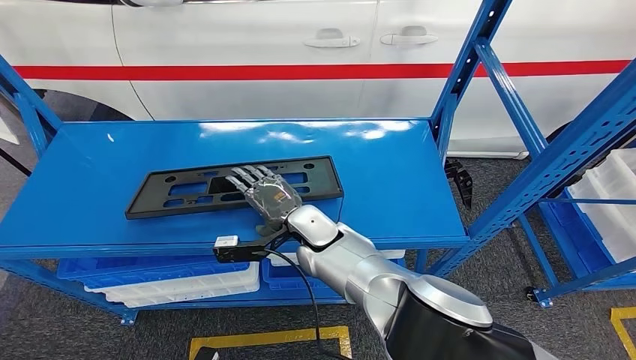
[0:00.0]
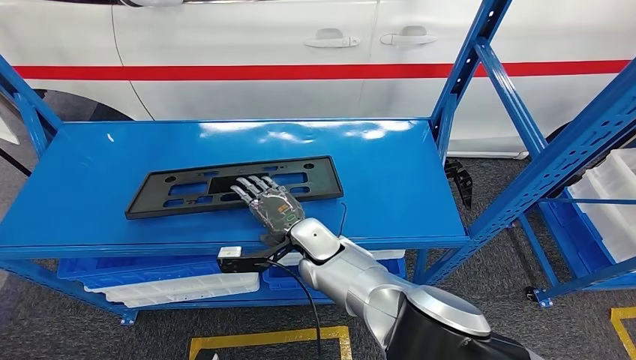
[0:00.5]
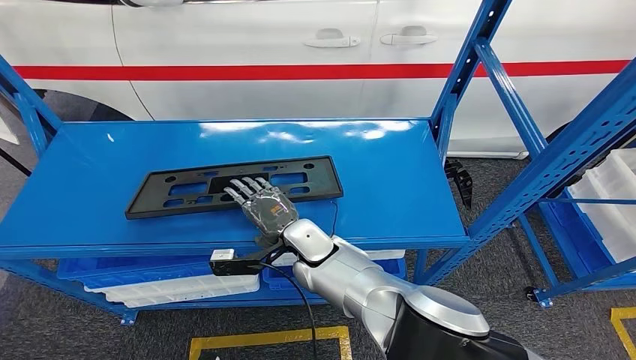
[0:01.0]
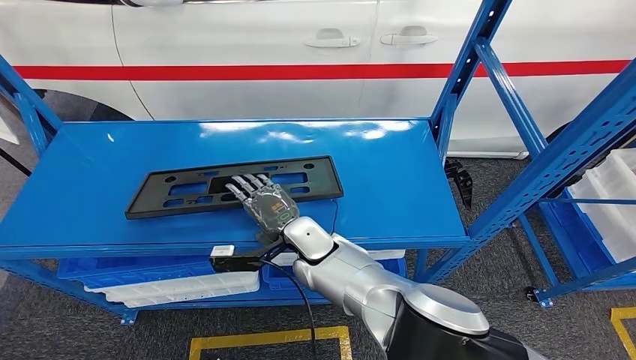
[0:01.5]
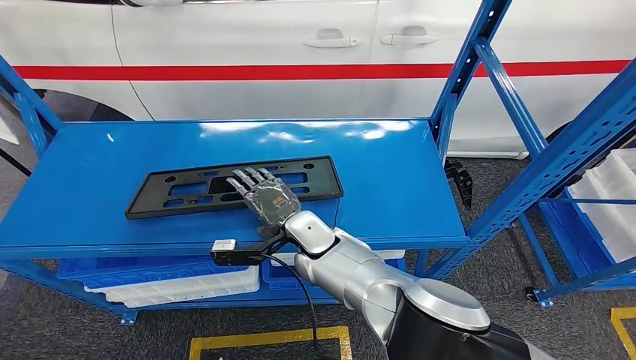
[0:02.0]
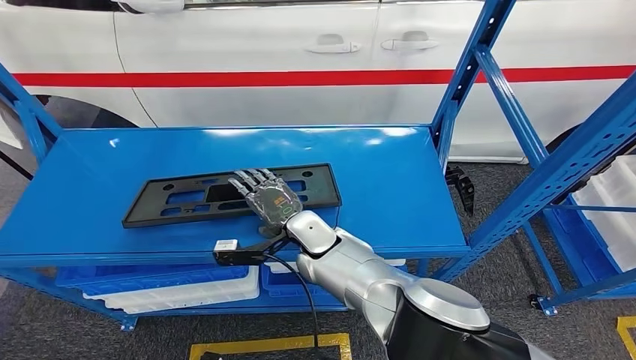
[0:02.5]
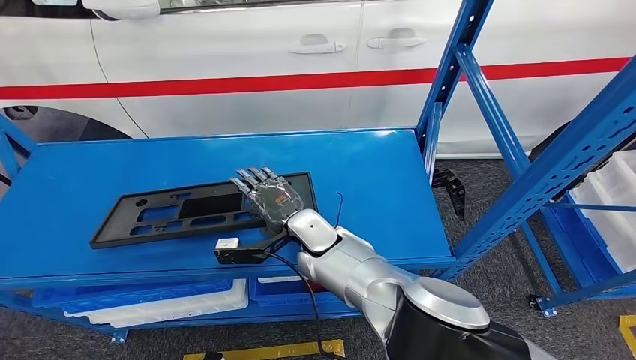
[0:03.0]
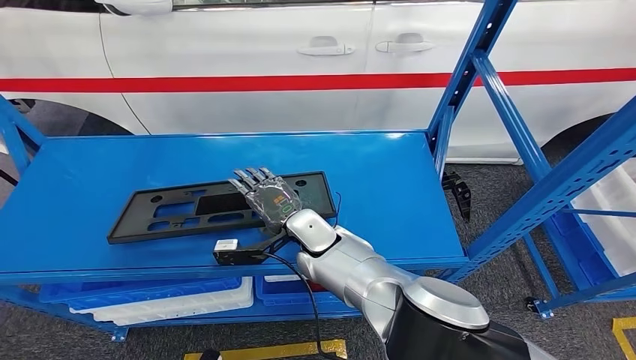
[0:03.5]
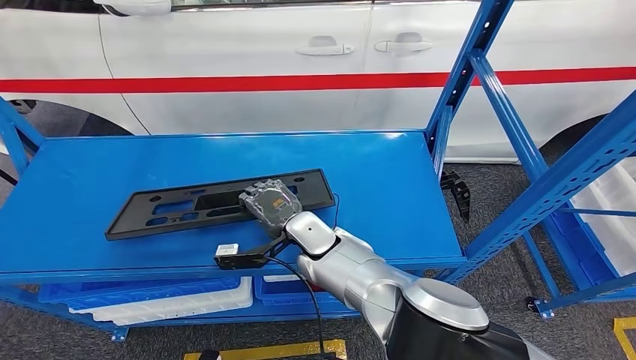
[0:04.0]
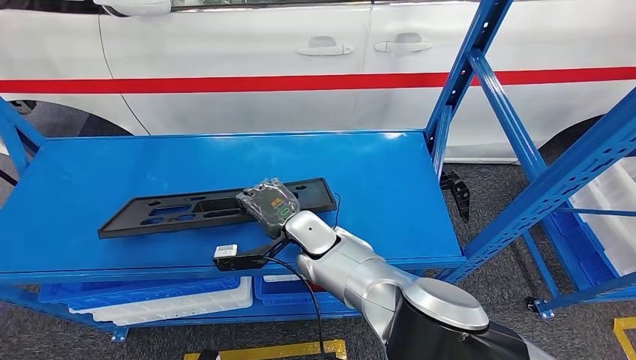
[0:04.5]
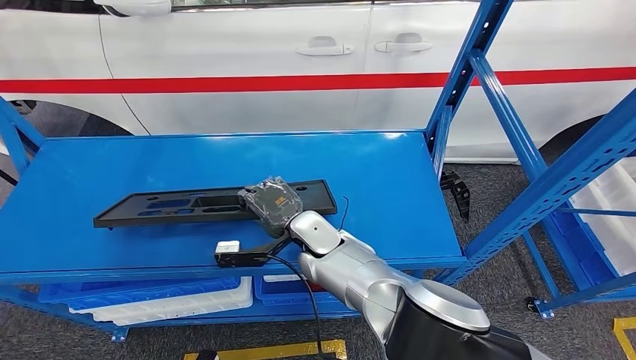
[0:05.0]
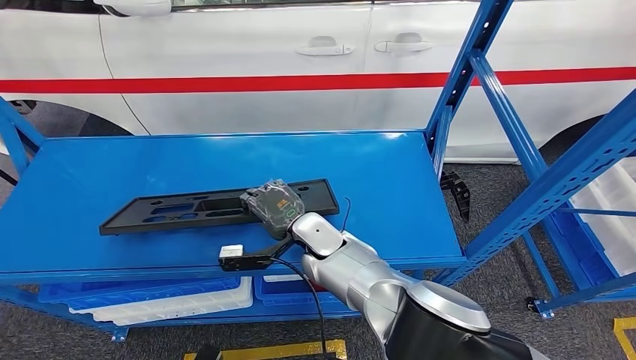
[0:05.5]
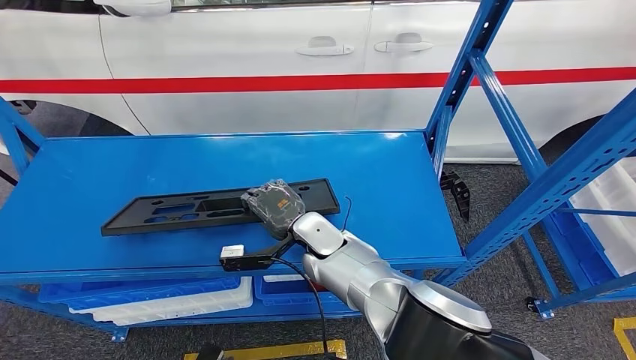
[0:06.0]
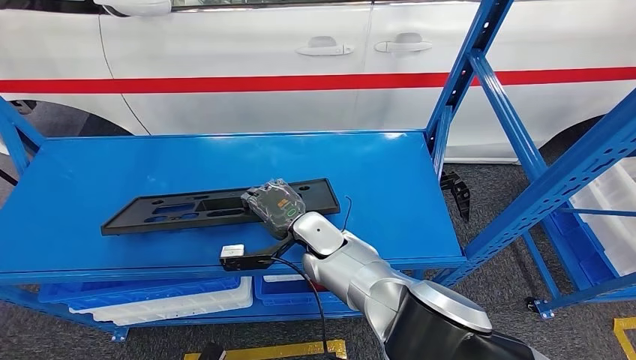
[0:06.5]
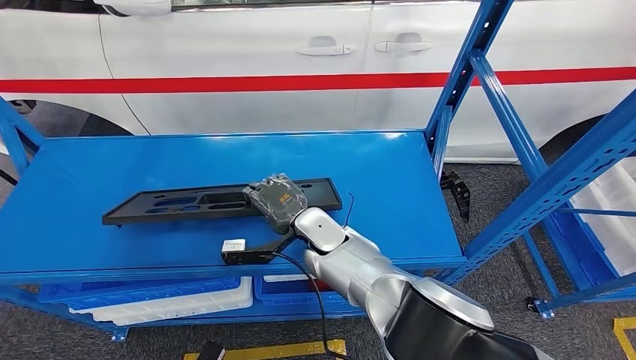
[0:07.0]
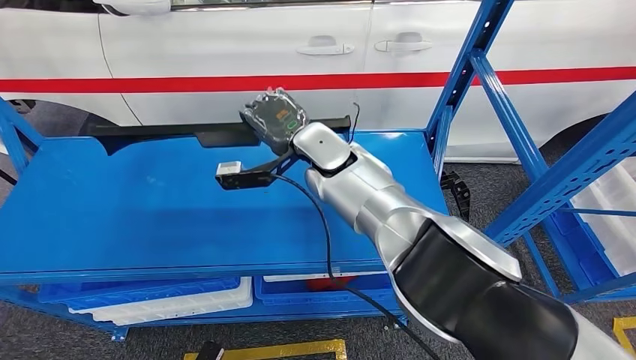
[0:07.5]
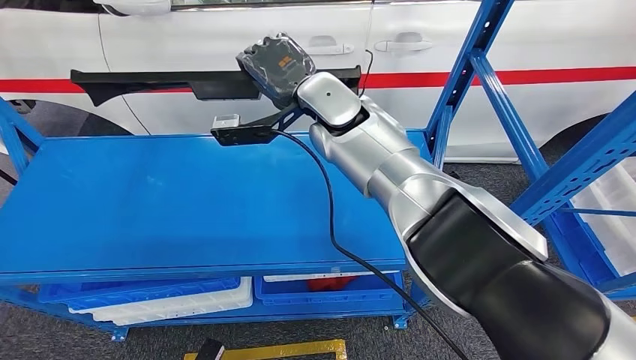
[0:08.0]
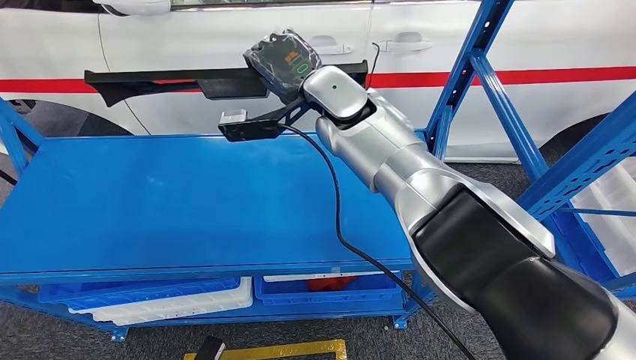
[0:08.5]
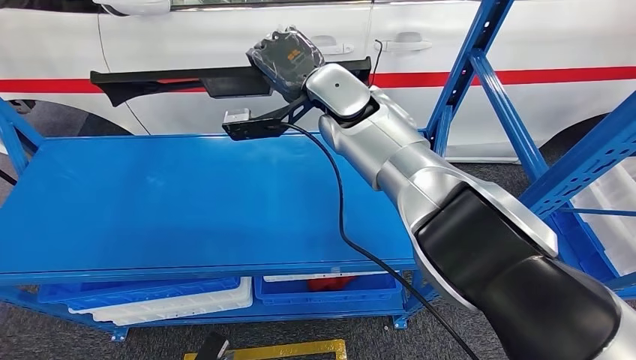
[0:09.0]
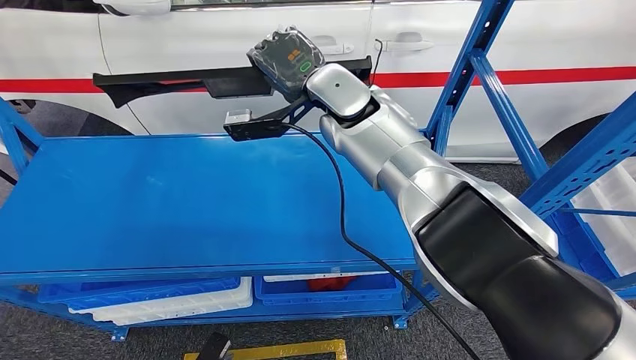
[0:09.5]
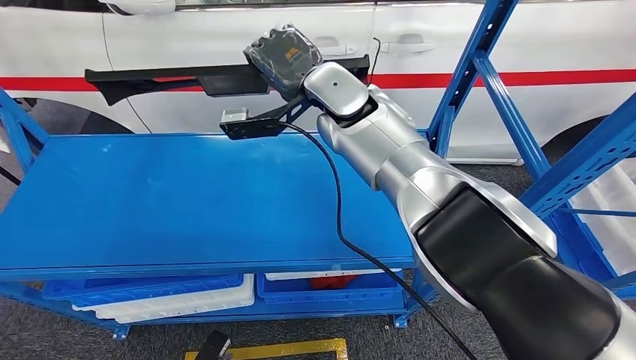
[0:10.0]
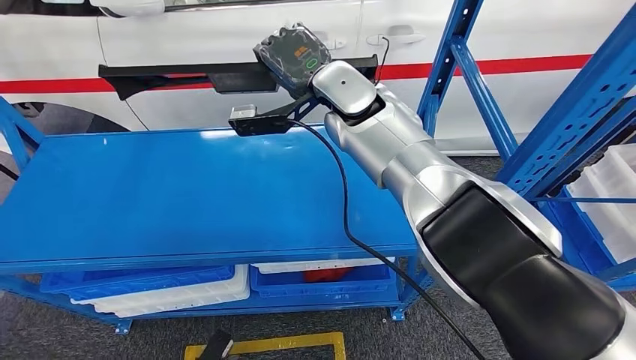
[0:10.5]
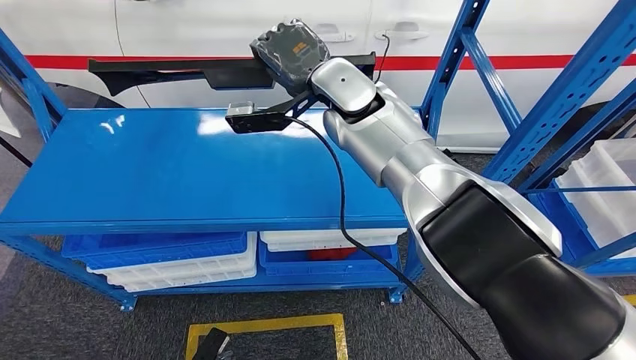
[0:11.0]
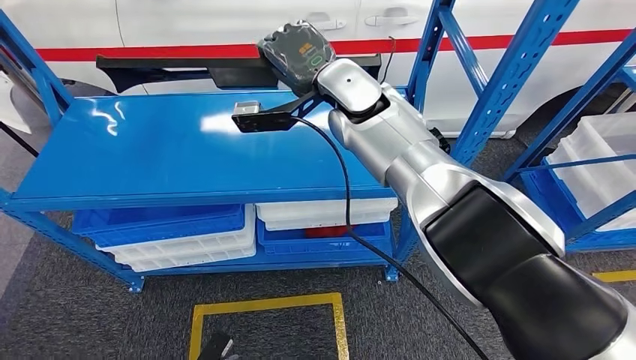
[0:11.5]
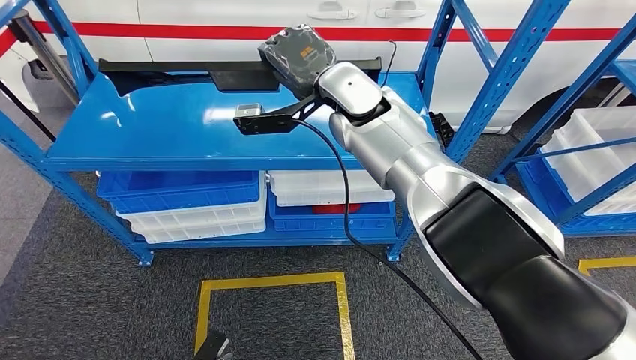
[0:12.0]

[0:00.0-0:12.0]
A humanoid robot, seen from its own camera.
Step, 0:00.0 to 0:08.0: Pick up the large material from the shelf.
0:00.0 to 0:02.0: The hands make only small movements.
0:04.0 to 0:06.0: The hands move only a little.

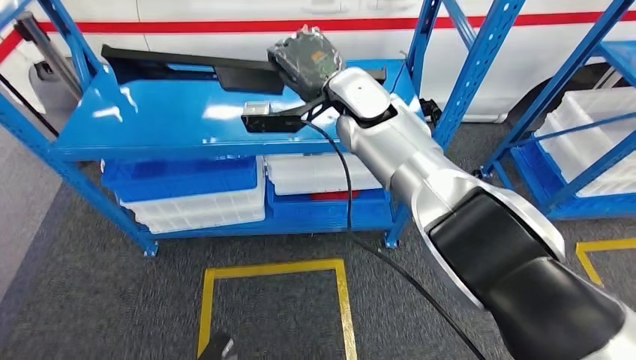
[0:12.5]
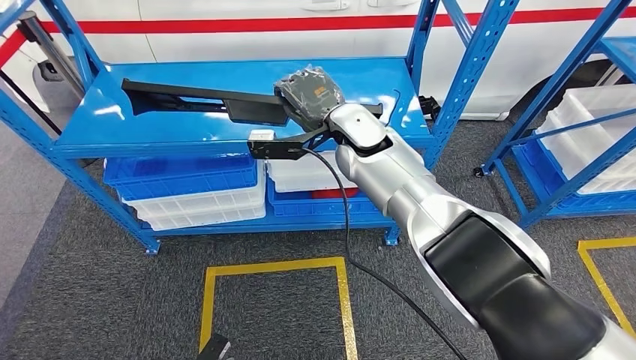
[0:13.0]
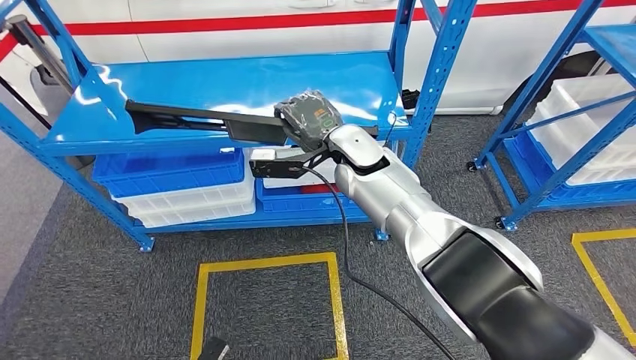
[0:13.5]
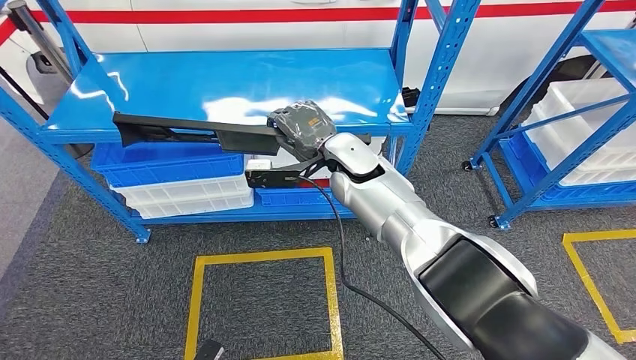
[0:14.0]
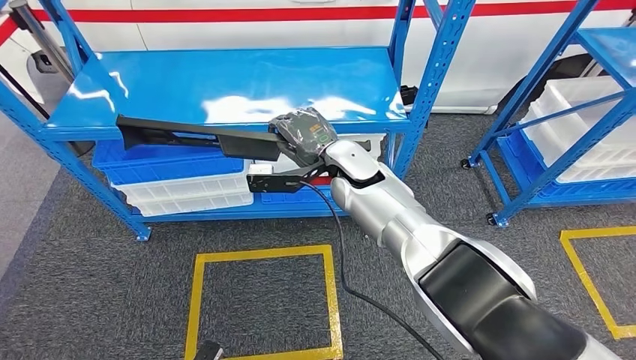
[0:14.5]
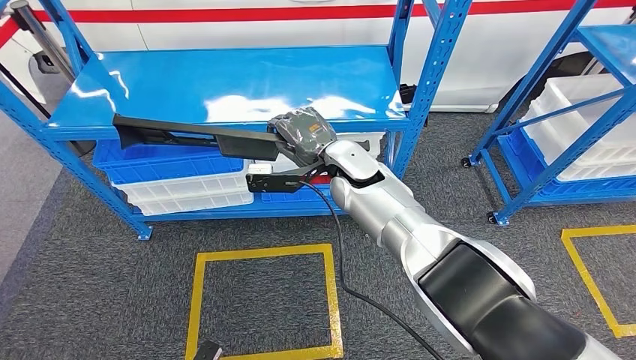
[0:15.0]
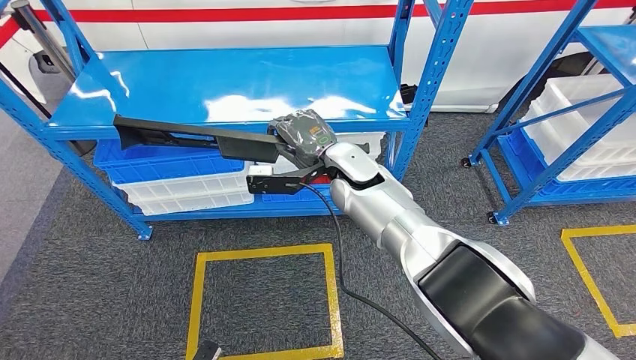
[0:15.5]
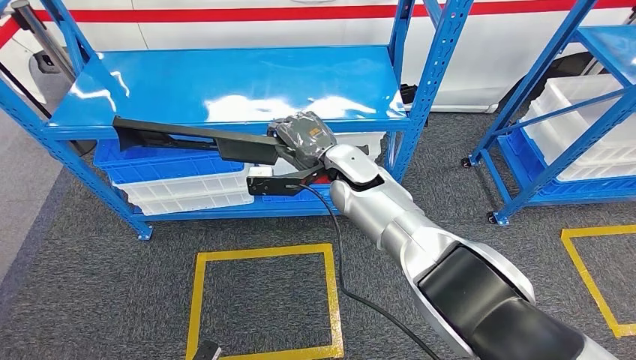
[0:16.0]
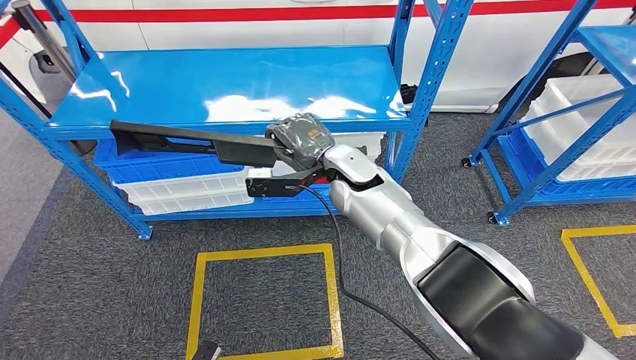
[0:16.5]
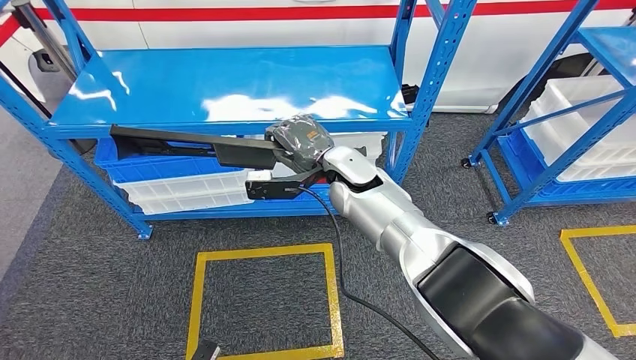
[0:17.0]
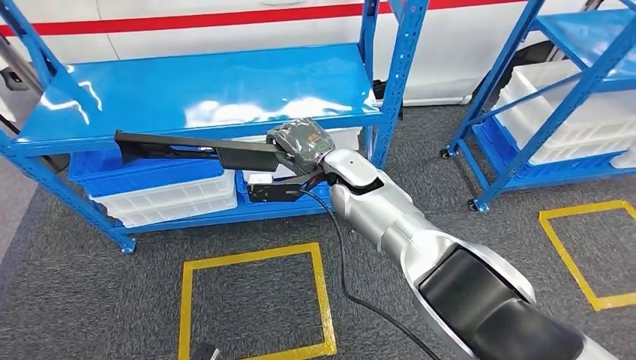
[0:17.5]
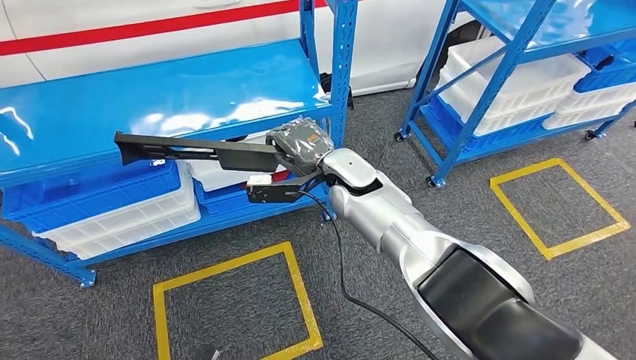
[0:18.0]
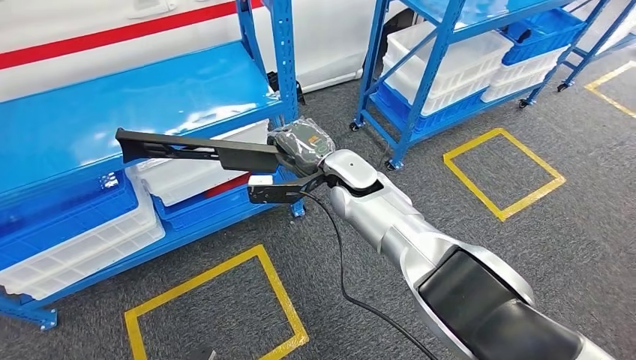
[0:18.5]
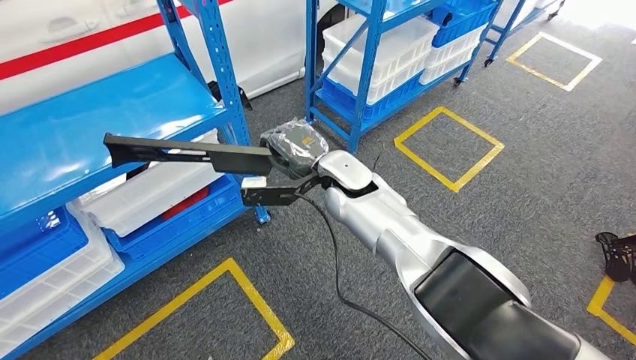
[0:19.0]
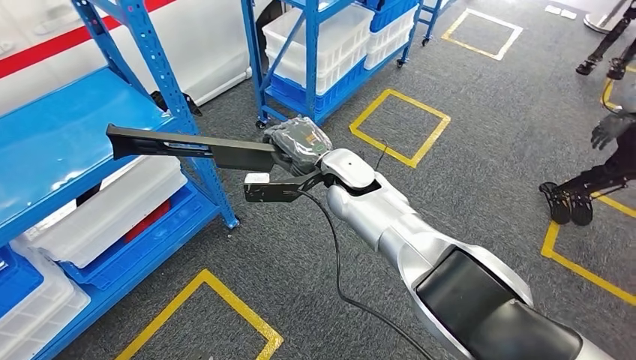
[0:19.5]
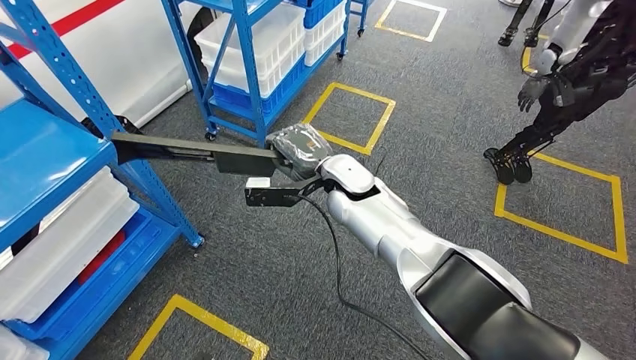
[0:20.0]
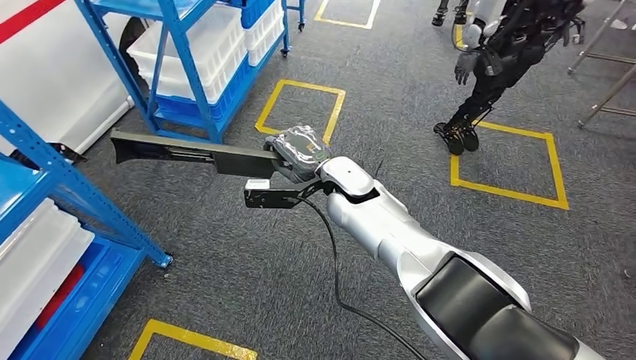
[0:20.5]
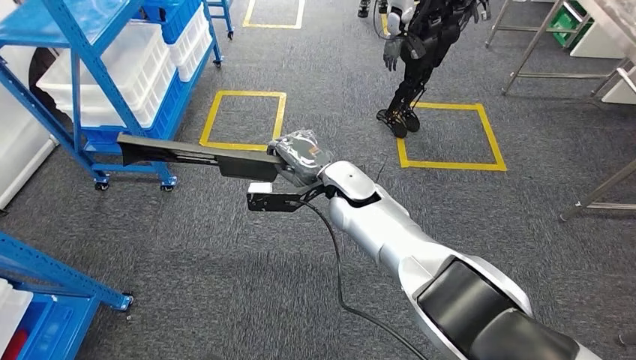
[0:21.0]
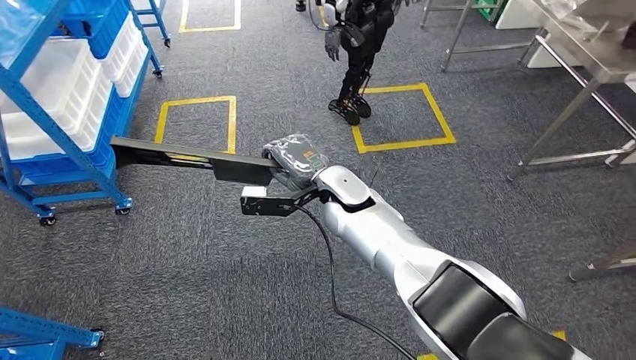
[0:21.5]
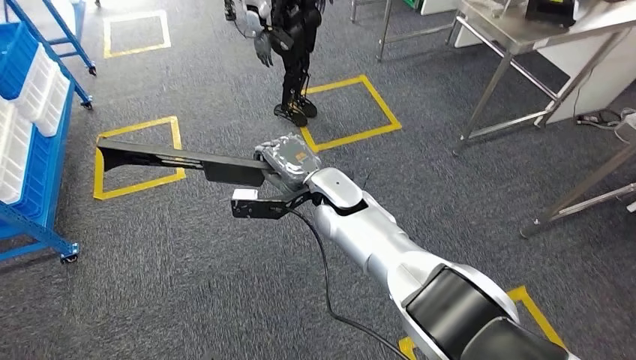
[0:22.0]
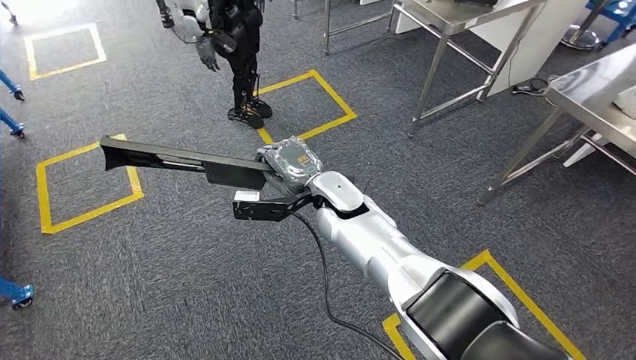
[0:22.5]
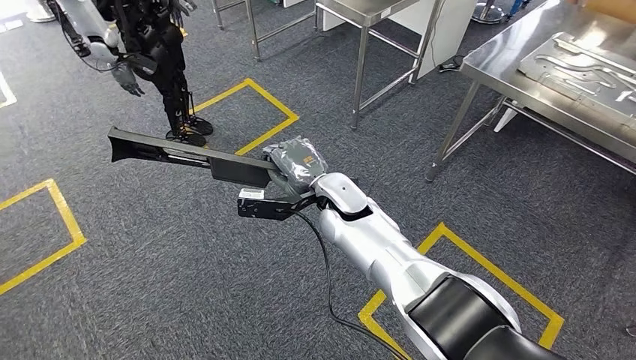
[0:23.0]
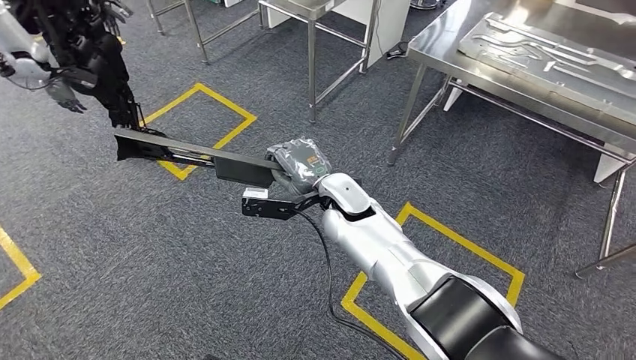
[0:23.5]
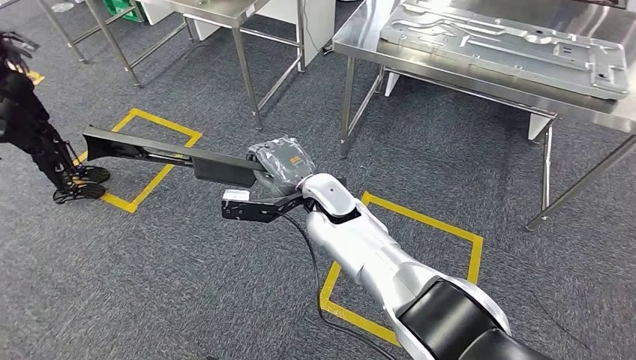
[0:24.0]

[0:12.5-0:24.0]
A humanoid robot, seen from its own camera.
0:14.5 to 0:16.5: The two hands keep their place.
